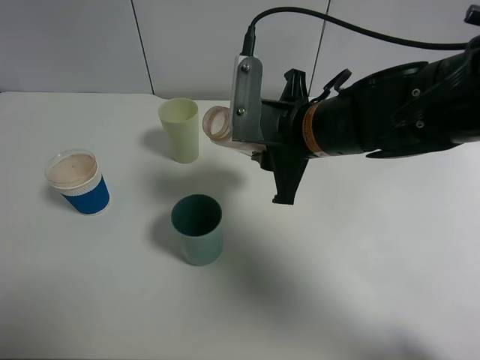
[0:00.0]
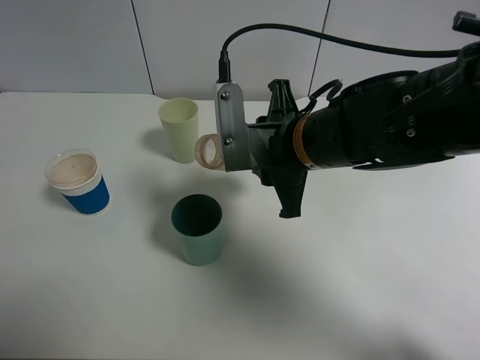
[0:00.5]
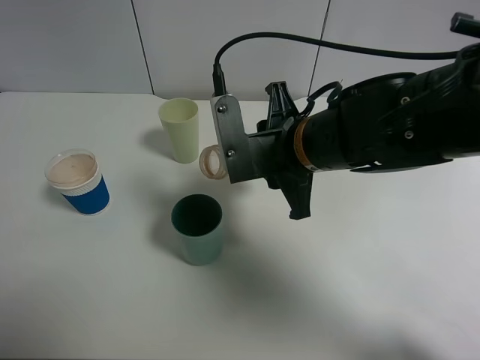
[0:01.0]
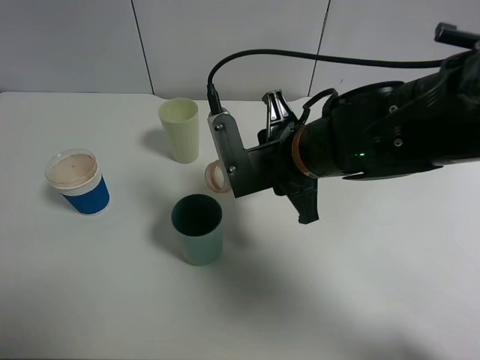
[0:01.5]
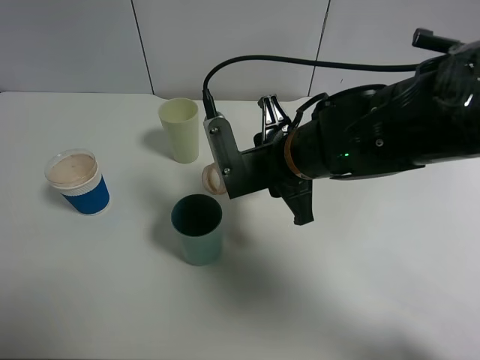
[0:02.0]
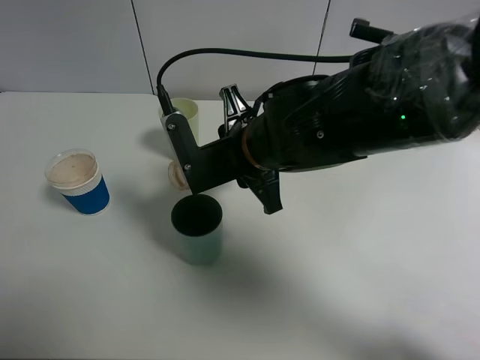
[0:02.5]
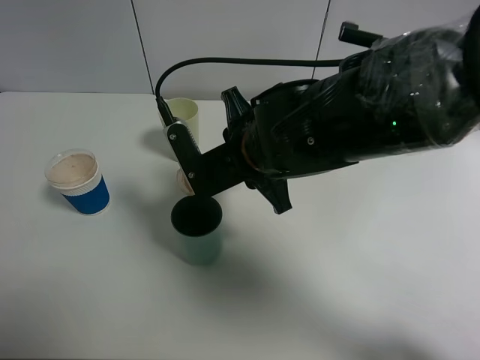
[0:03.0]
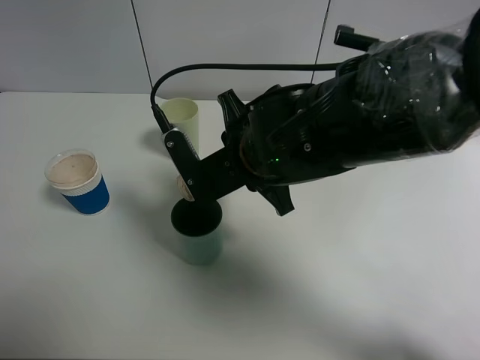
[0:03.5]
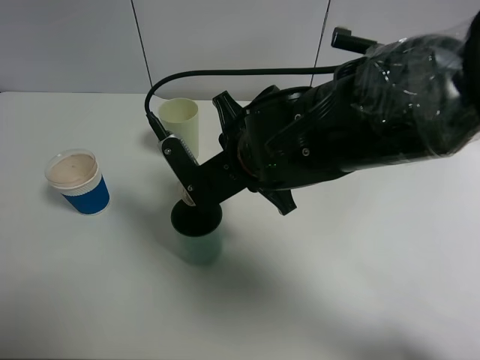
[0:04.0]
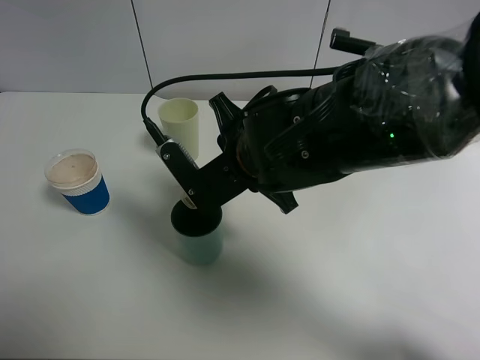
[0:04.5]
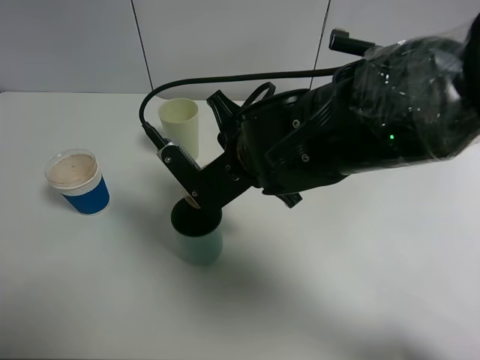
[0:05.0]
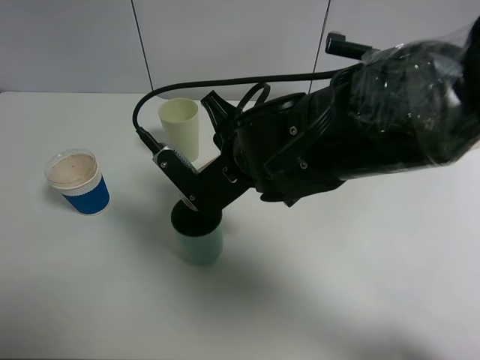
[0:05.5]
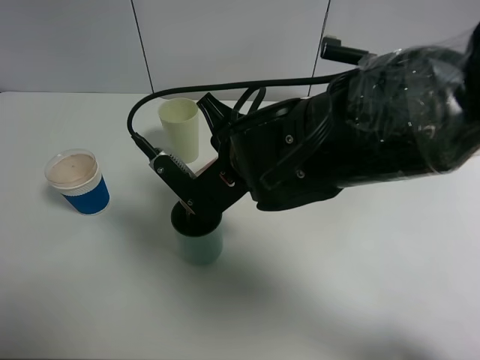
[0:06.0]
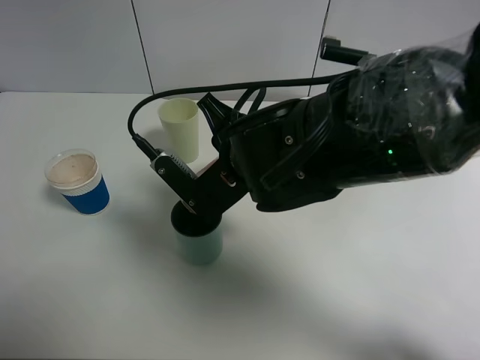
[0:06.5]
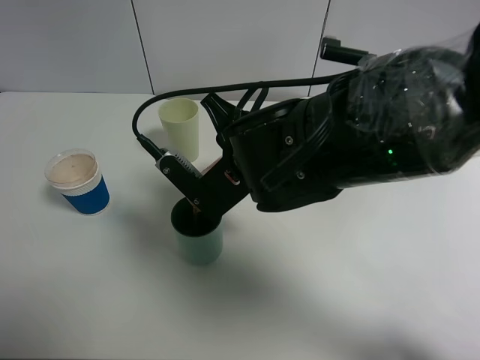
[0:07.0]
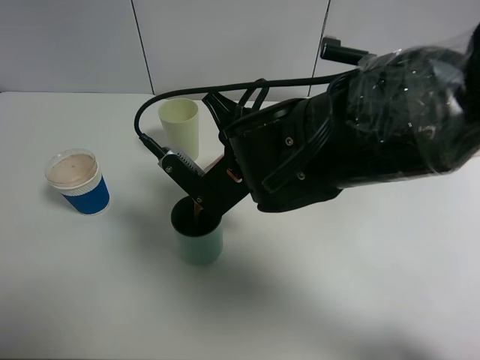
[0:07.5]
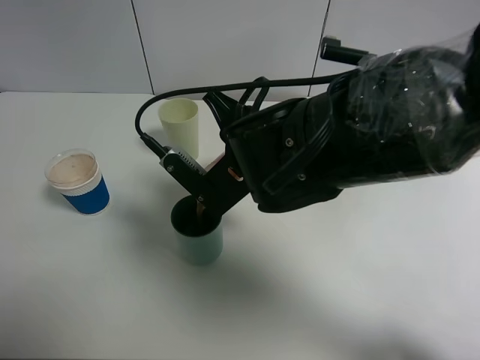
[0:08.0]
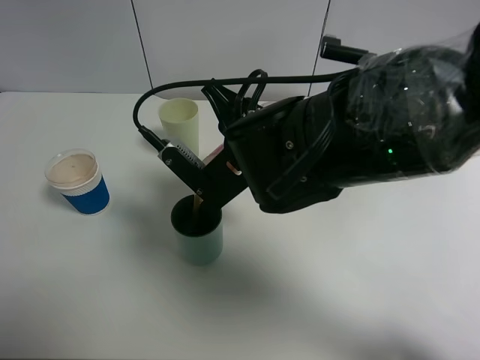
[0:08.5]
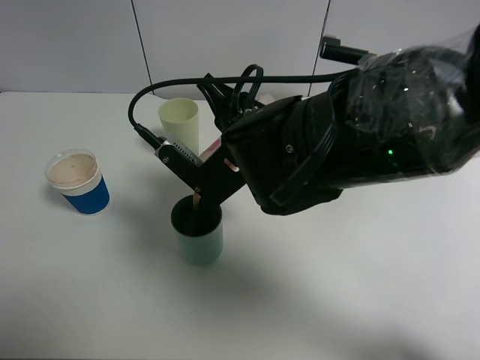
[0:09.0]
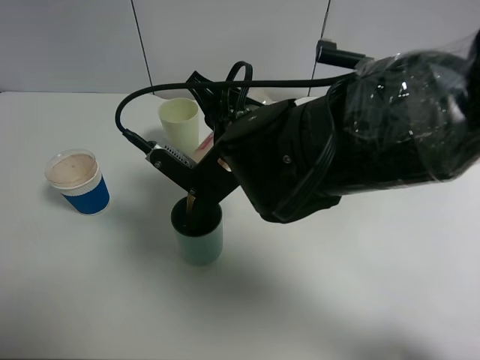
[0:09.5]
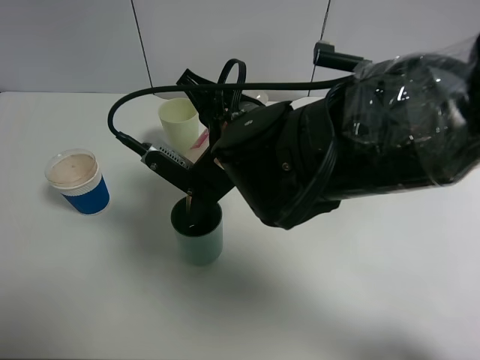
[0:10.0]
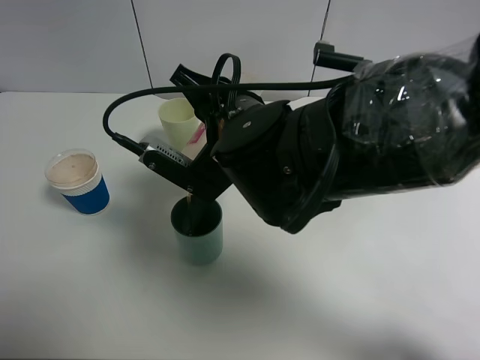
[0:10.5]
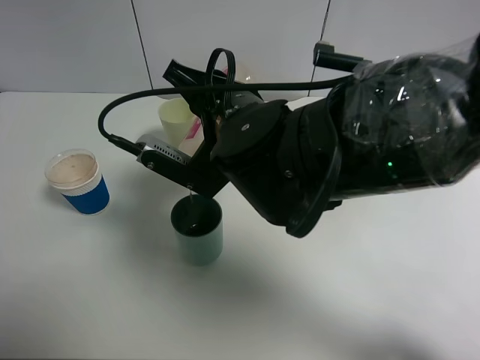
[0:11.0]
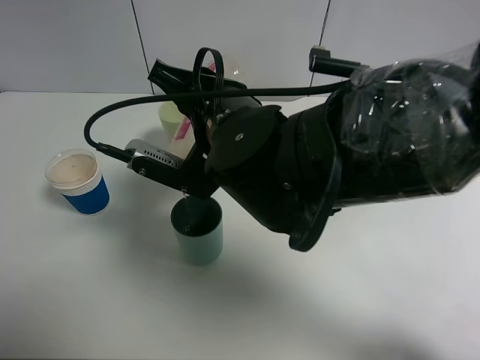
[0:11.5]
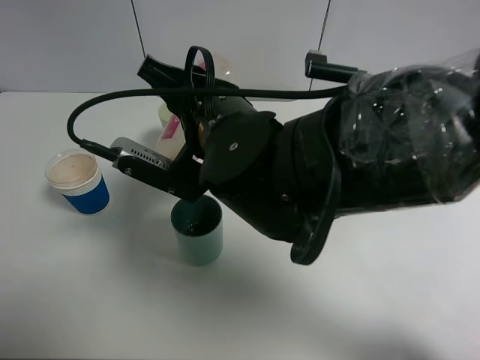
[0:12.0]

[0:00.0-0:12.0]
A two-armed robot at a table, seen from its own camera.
Task of the whole recording: use a clamp to hold the bottle of the drink, pour the beverage into a random cup, then clamp the cup containing the drink and pour the drink into another random cup.
0:02.0 to 0:04.0: There are only small adjustments of the grippers.
0:04.0 to 0:08.0: There are only small adjustments of the grippers.
0:08.0 to 0:10.0: There are only small adjustments of the grippers.
0:10.0 to 0:12.0: The grippers move only a little.

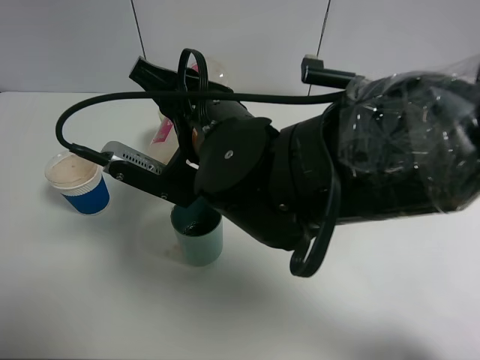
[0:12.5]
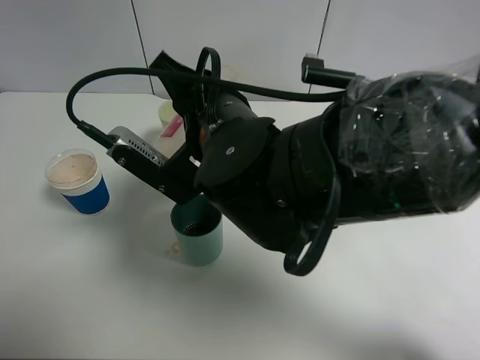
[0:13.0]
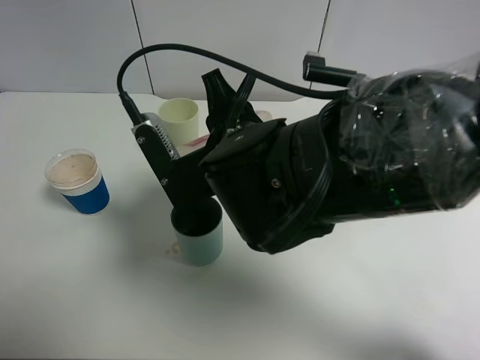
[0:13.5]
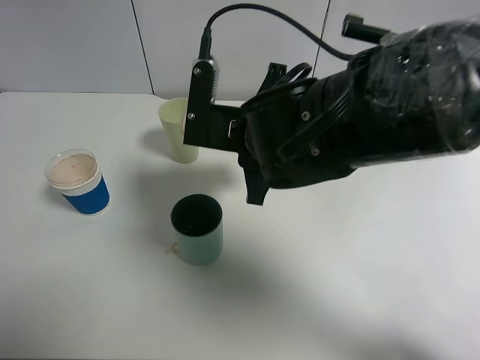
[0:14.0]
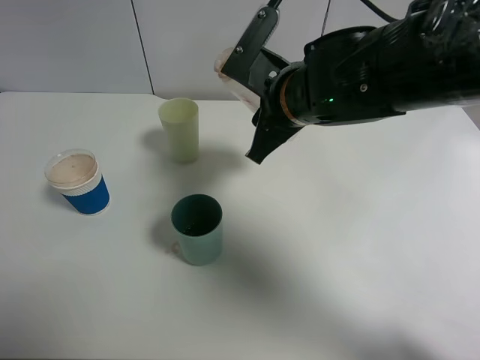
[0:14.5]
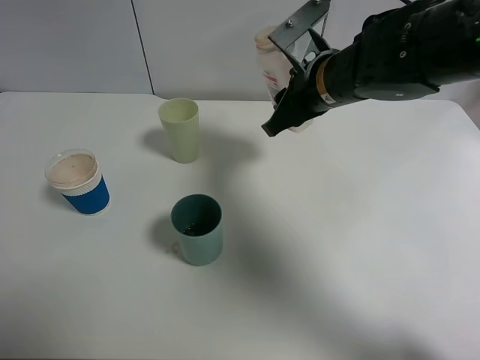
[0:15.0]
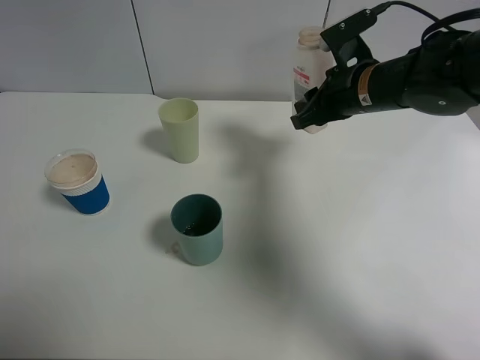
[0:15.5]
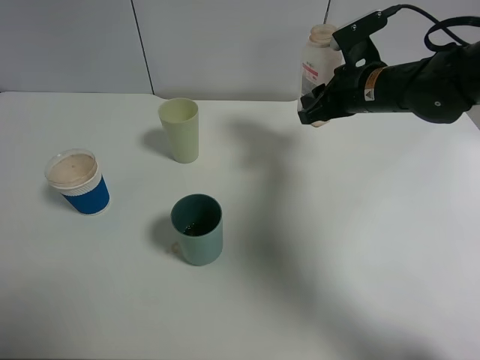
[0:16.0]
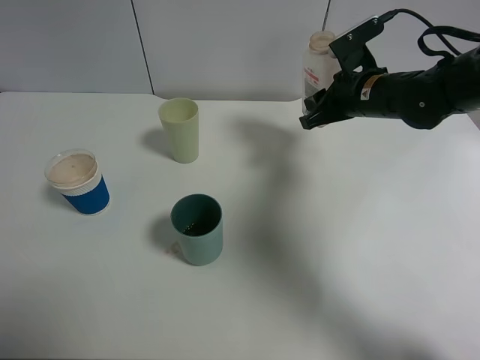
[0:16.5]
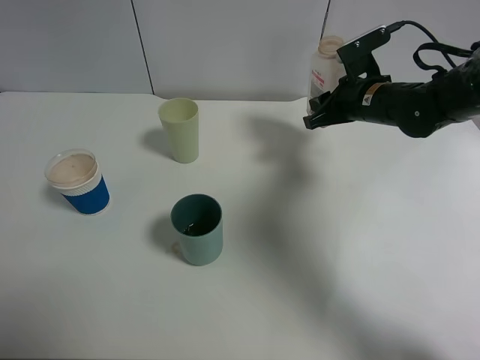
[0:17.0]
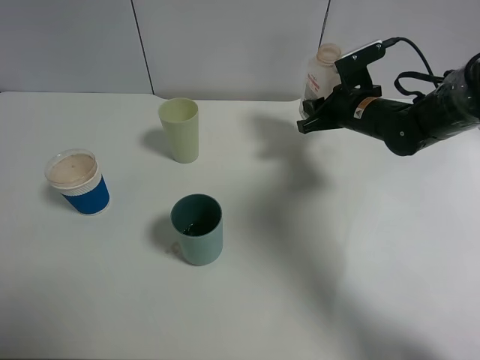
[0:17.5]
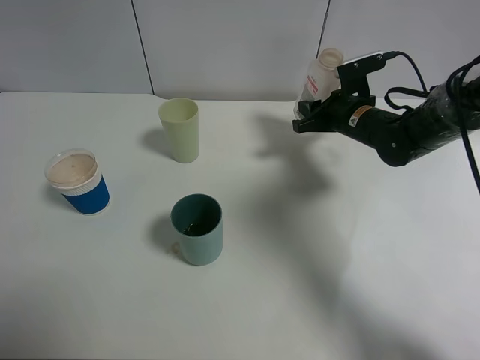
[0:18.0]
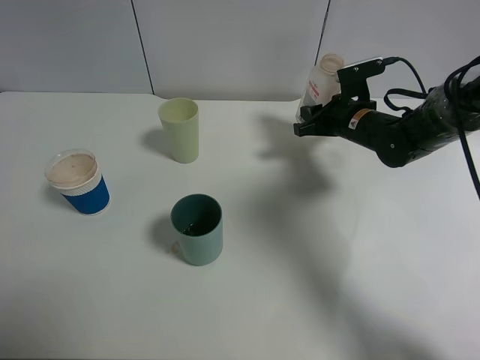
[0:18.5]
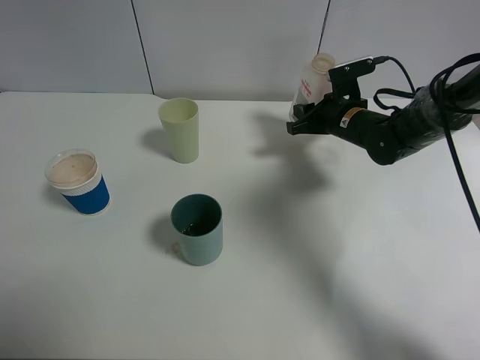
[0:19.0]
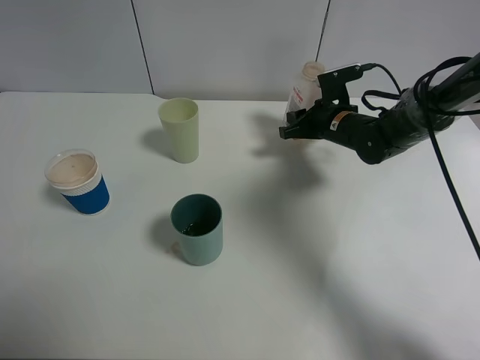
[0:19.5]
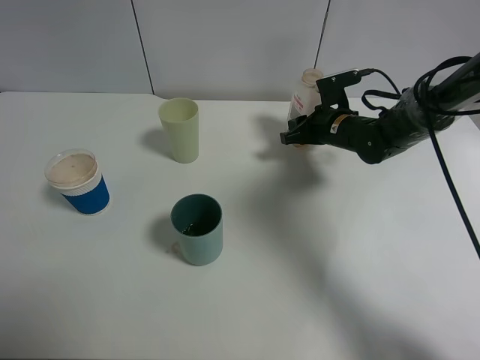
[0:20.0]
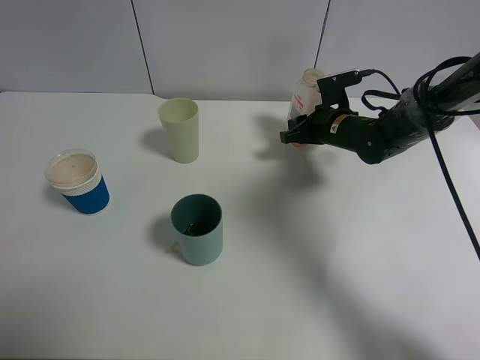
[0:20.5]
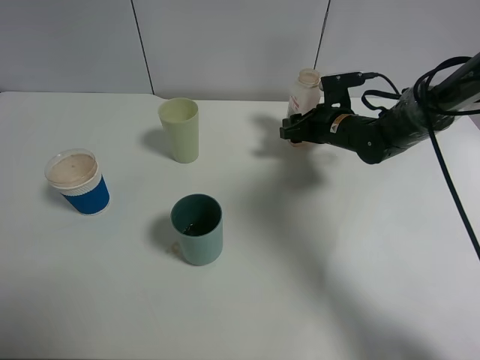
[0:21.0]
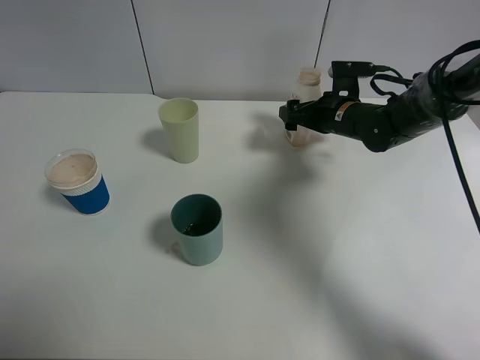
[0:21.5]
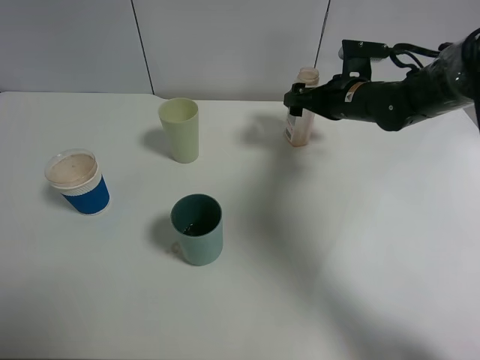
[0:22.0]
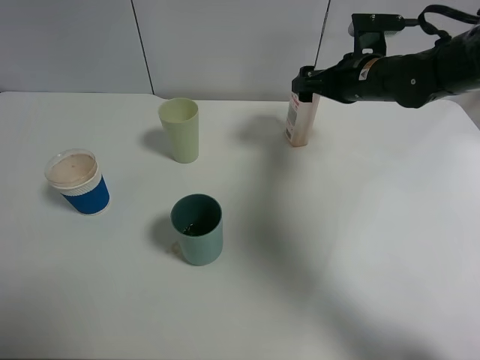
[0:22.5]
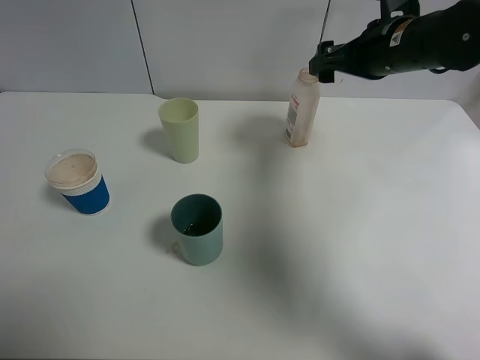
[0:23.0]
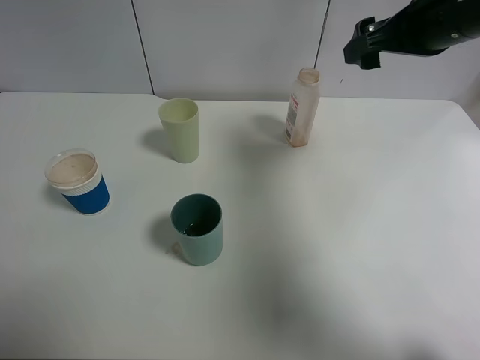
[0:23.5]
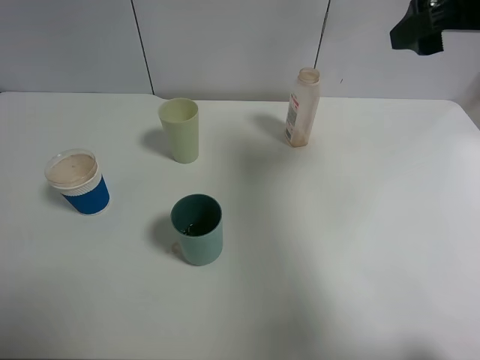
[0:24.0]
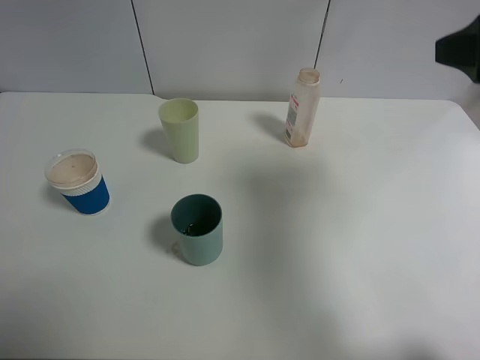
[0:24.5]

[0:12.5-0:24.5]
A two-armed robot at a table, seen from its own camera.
Task of the whole recording: use a clamp to hold the bottle of the drink, pour the beverage into a random cup, then clamp the cup containing the drink and pour the drink into another random cup.
Step, 0:14.0 to 0:22.0: Place the drink bottle on the table with right gripper.
0:12.5 to 0:14.5: The right gripper moves to the right and forward, about 10 cm.
0:14.5 to 0:16.5: The right gripper is displaced to the right and forward by approximately 15 cm.
0:16.5 to 0:18.5: The right gripper shifts roughly 5 cm downward.
0:18.5 to 0:20.5: There are only small adjustments of the grippers.
0:20.5 to 0:22.5: The right gripper shifts roughly 10 cm upward, and opens up.
0:22.5 to 0:24.5: The right gripper is displaced backward and upward by some 25 cm.

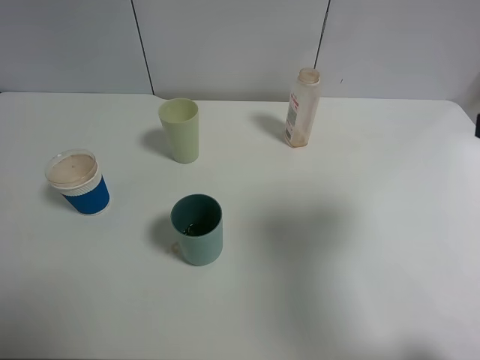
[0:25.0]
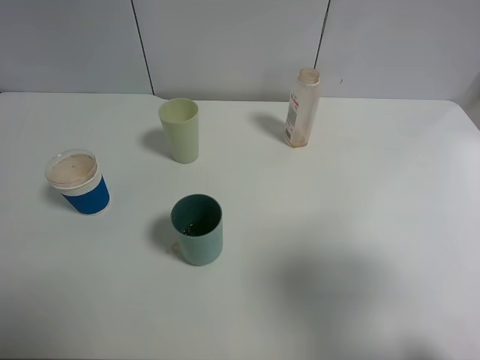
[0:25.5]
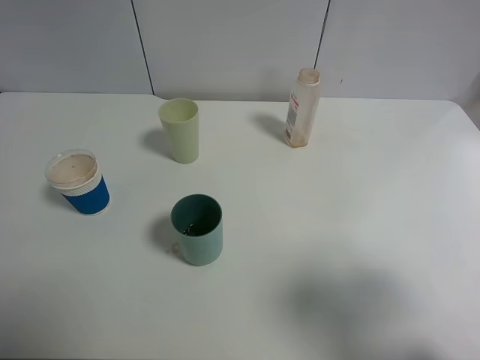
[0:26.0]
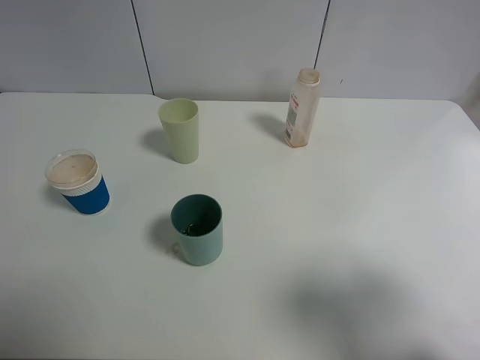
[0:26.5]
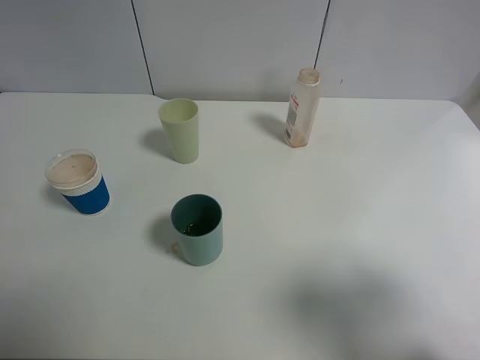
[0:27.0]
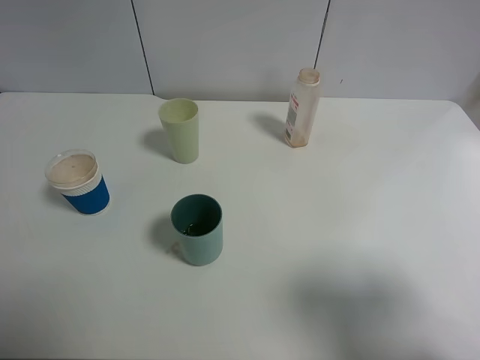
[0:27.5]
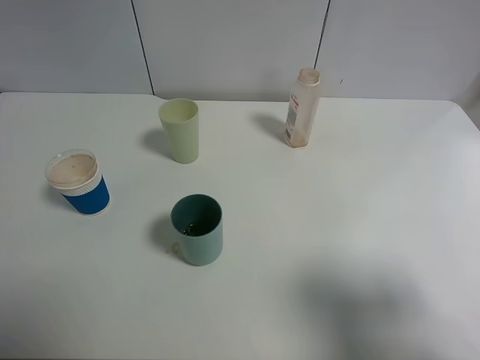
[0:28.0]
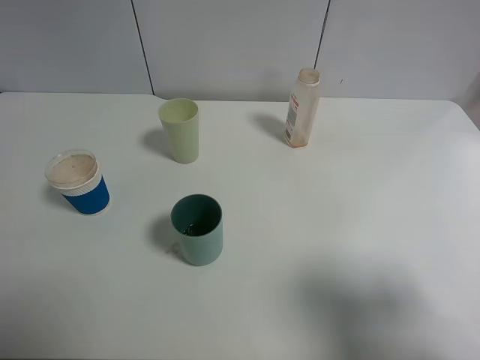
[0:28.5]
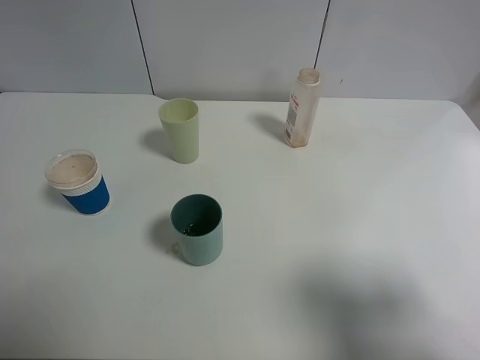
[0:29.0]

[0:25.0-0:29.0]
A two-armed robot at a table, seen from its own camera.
Task of the whole recording: use a clamp to hold the bottle of the drink, pour the beverage into a random cup, then clamp the cup containing the drink and pour the drink into another random cup.
0:25.0 to 0:27.0: The right gripper travels backward by some 10 cm.
